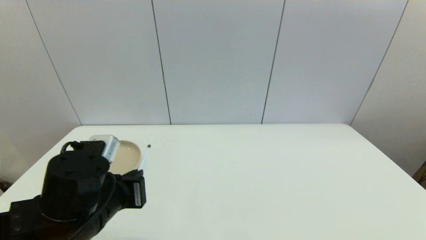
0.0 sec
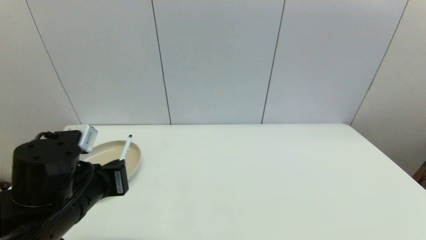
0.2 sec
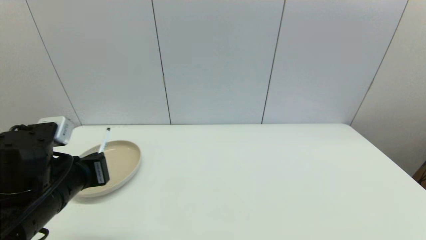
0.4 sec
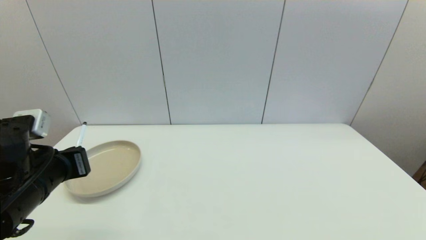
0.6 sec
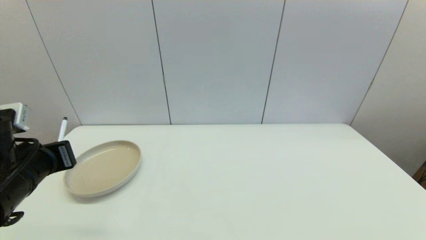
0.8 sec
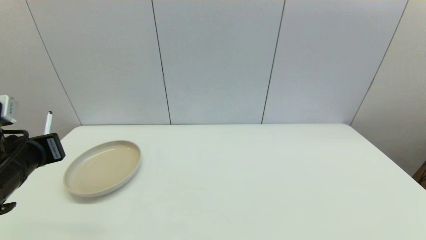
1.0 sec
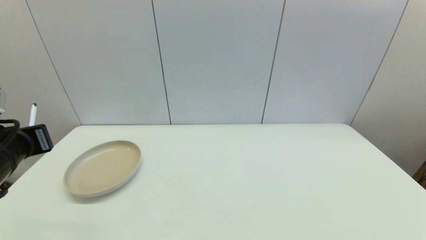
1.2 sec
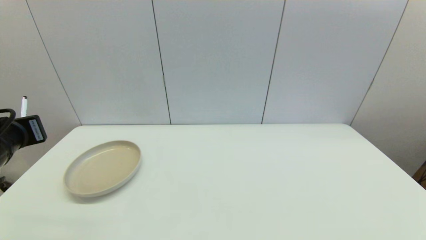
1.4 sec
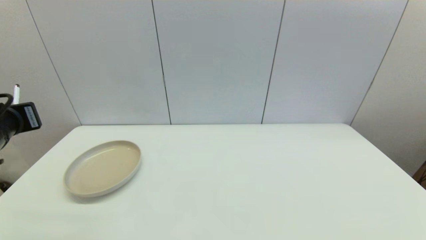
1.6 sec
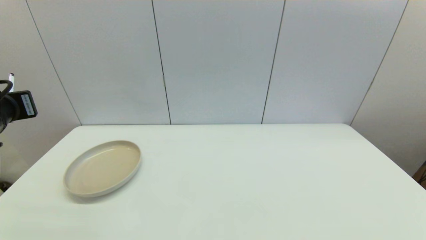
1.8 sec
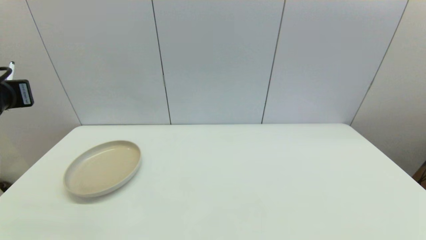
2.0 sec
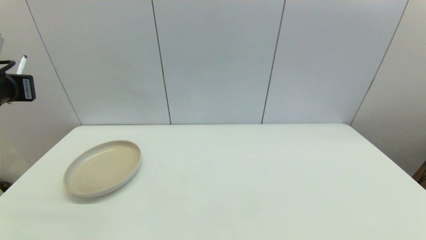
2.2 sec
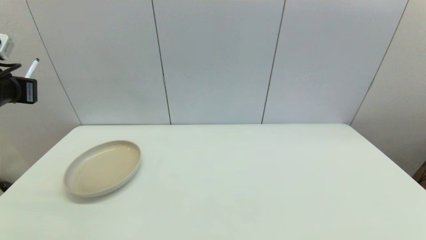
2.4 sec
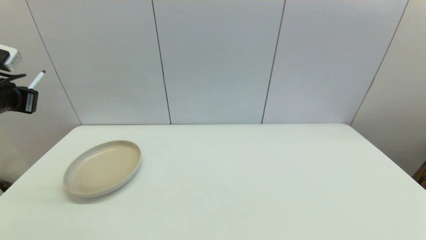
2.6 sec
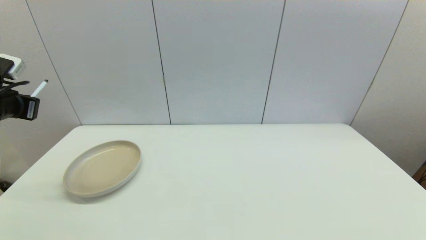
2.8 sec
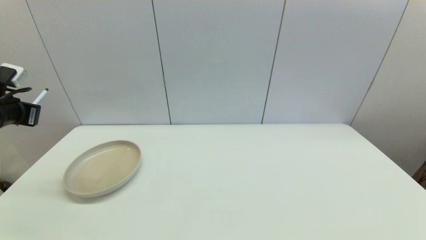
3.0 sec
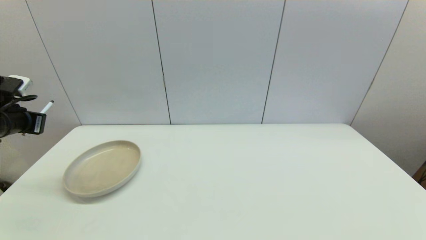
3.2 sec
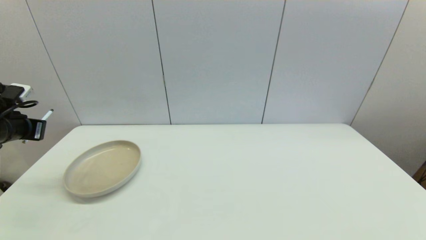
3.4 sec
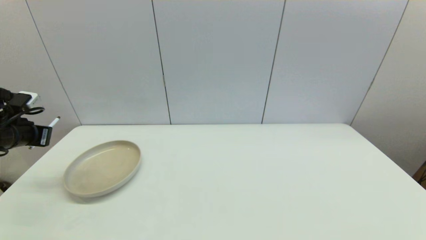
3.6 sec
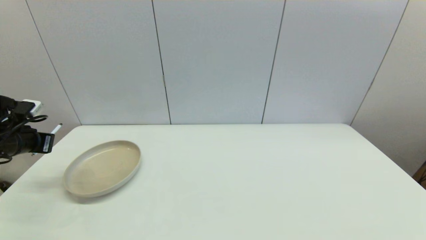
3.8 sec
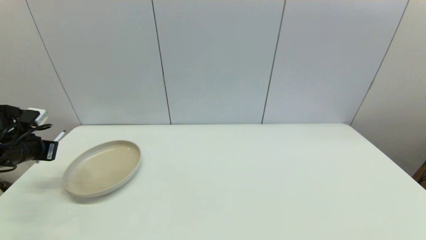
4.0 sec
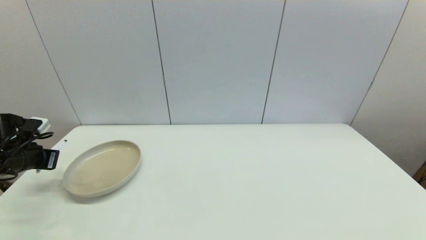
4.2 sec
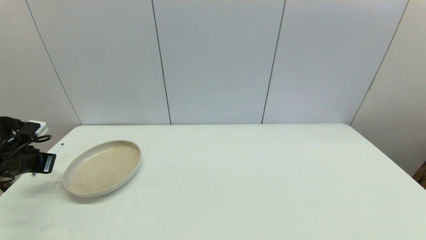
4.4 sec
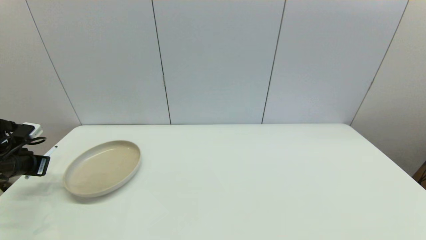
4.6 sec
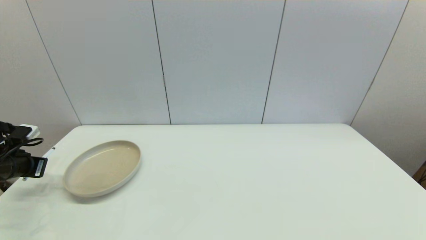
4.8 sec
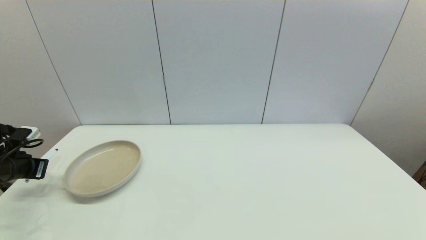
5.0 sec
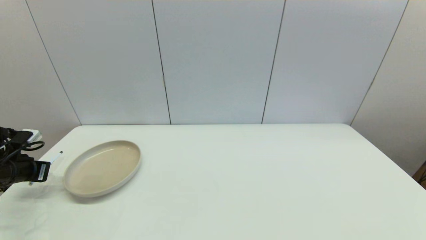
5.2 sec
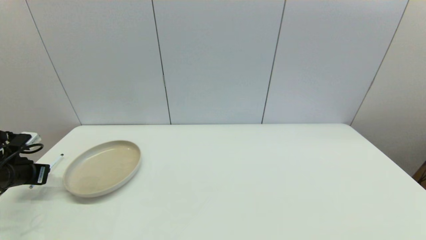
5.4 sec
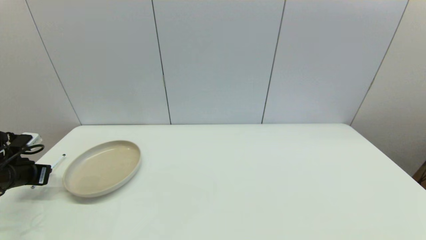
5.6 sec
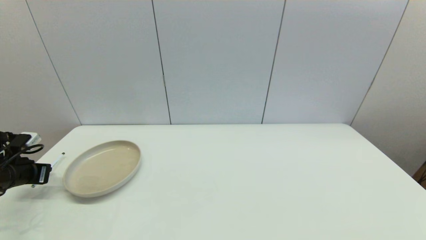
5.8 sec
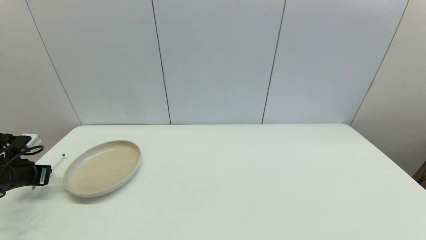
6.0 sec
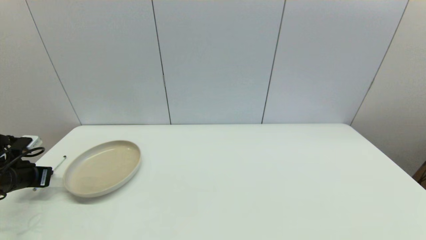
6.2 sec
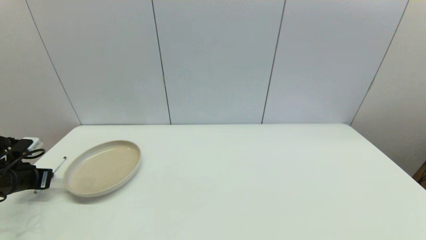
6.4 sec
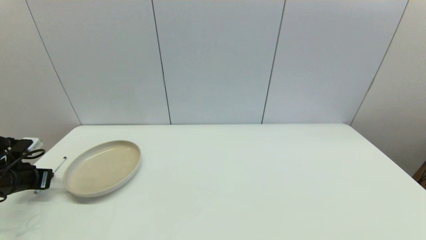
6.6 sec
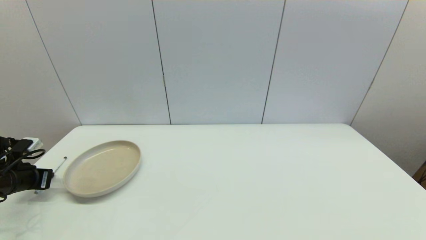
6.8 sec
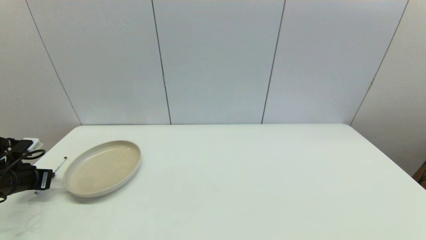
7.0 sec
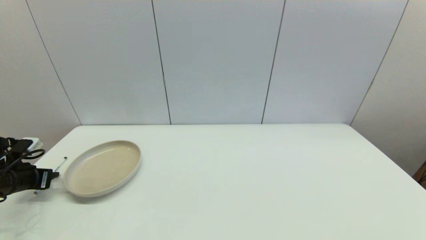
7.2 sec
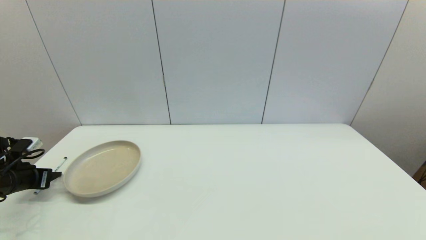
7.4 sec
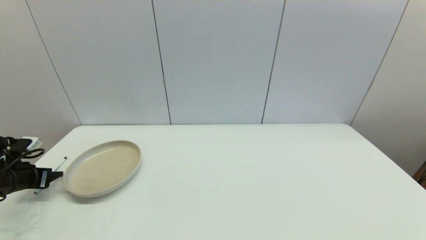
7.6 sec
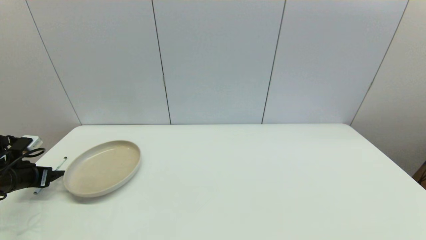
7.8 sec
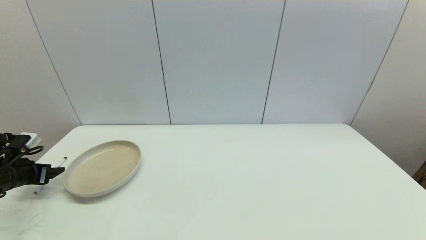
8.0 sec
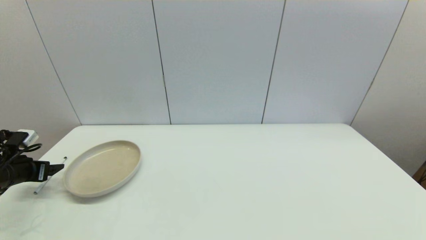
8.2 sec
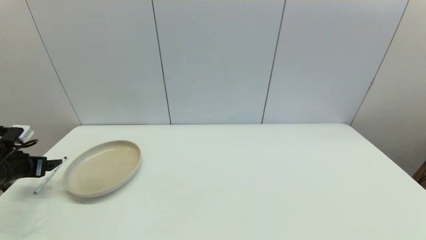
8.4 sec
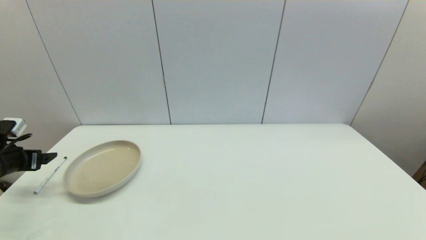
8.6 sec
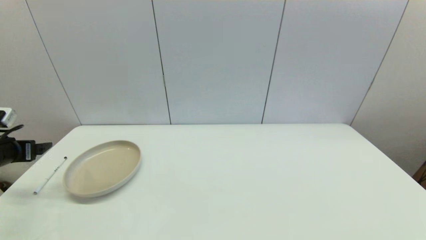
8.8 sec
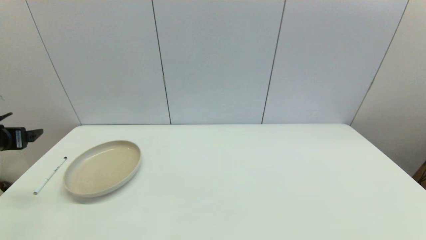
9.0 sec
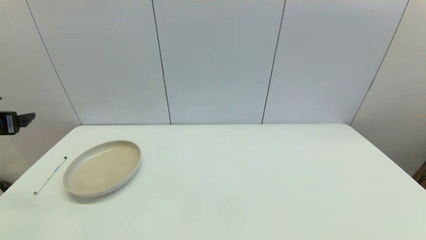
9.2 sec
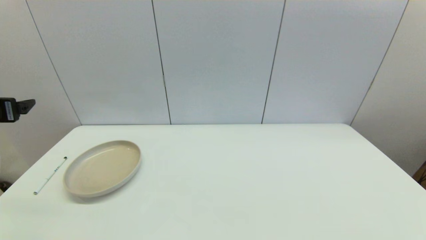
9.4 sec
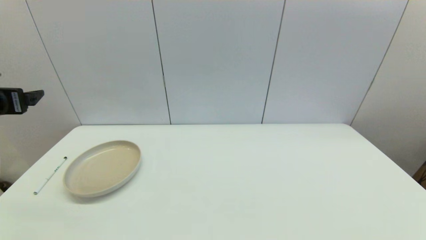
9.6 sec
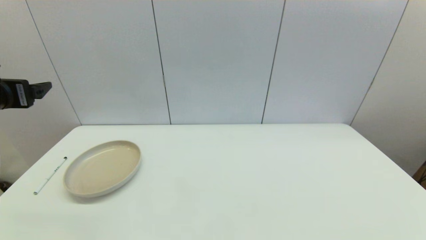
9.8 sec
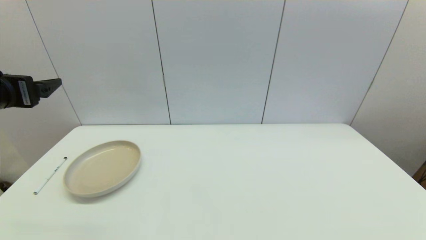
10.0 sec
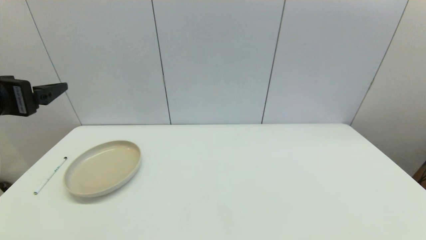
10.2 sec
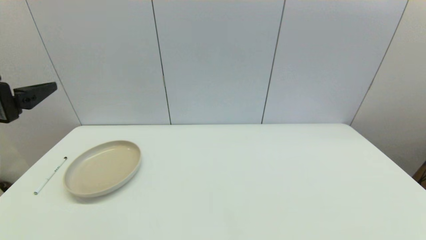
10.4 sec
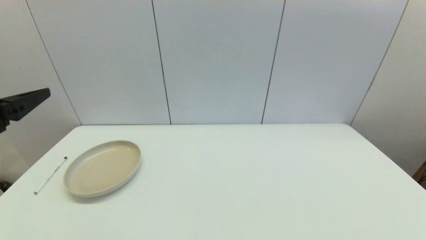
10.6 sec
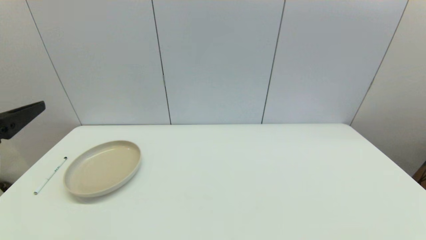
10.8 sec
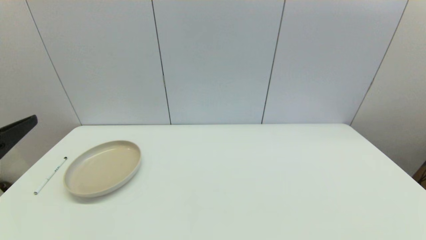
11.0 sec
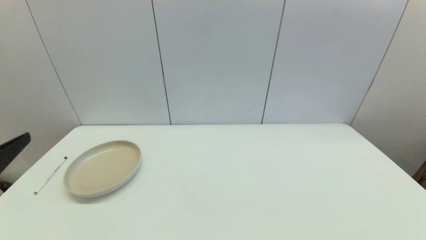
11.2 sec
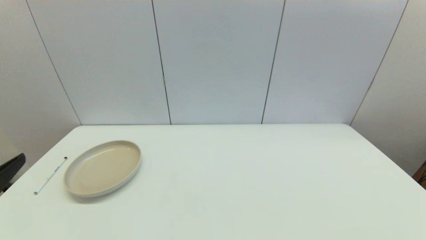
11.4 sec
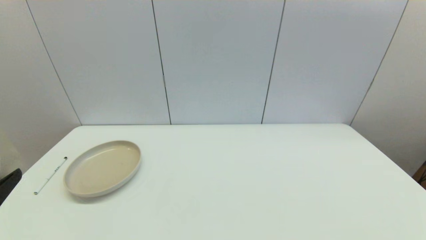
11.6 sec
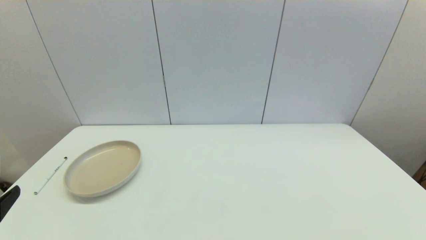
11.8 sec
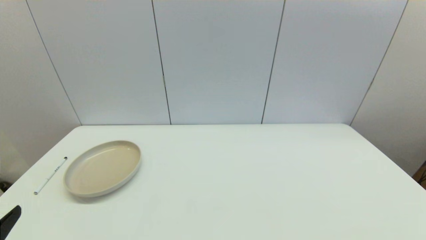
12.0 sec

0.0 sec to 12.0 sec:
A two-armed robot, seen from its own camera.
Task of the whole recording: put the pen in the designated position.
Step, 0.0 sec to 7.0 sec: Place the sign pen on the table with left gripper.
0.0 sec to 1.6 sec: The left gripper shifts roughly 20 cm to the left and upward.
1.6 sec to 3.0 sec: The left gripper goes roughly 10 cm to the left and forward.
3.0 sec to 4.4 sec: The left gripper shifts some 10 cm downward.
4.4 sec to 6.0 sec: The grippers move only a little.
6.0 sec to 7.6 sec: The left gripper opens.
7.6 sec to 9.0 sec: The left gripper moves upward, approximately 10 cm.
9.0 sec to 10.4 sec: The left gripper goes about 25 cm to the right, upward and backward.
10.4 sec to 12.0 sec: The left gripper is displaced backward and downward by about 20 cm.

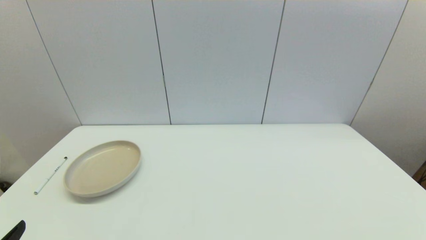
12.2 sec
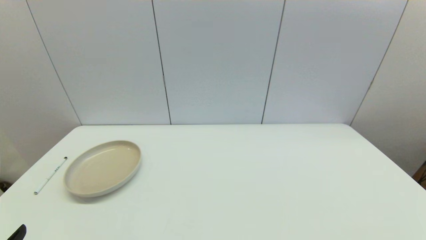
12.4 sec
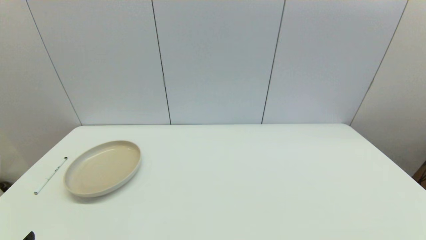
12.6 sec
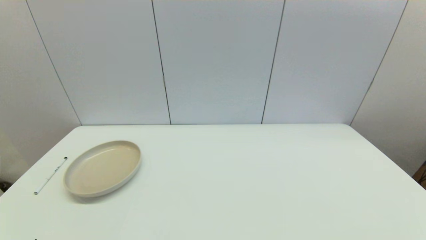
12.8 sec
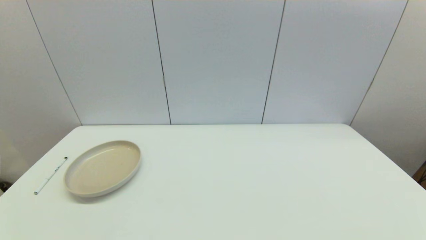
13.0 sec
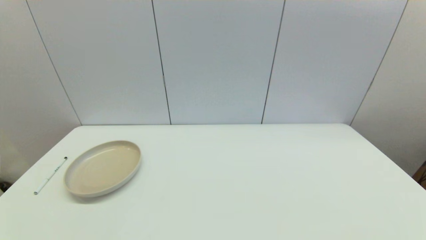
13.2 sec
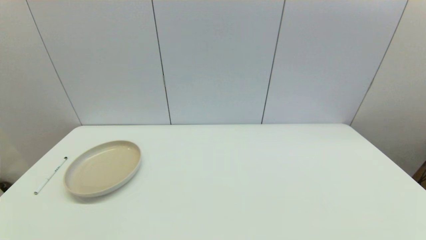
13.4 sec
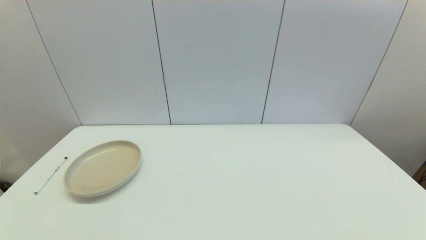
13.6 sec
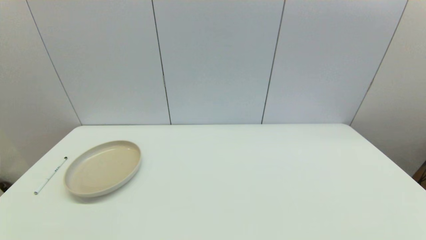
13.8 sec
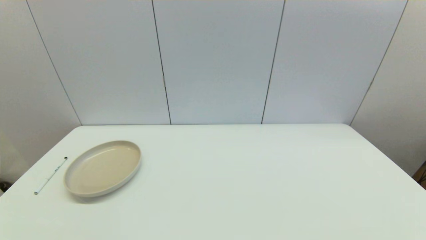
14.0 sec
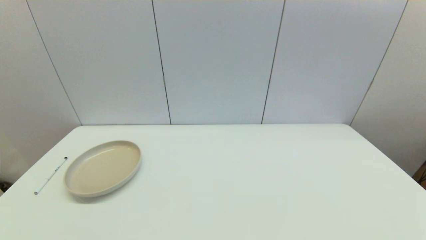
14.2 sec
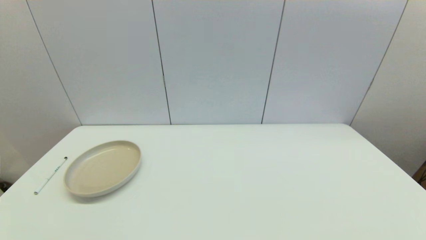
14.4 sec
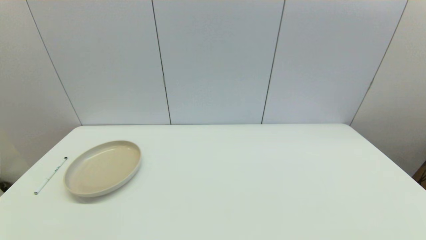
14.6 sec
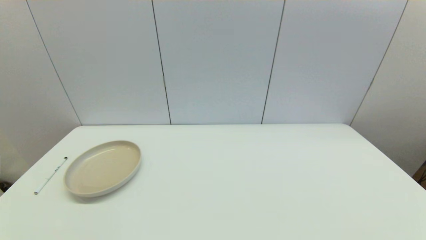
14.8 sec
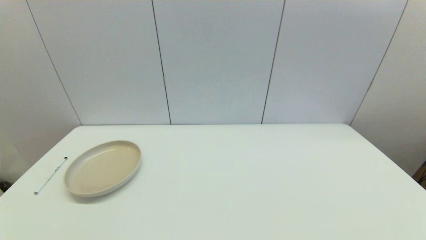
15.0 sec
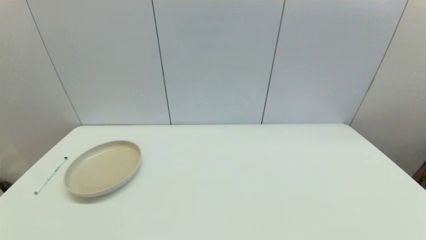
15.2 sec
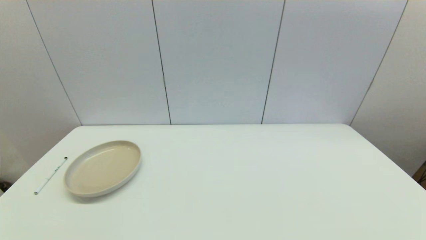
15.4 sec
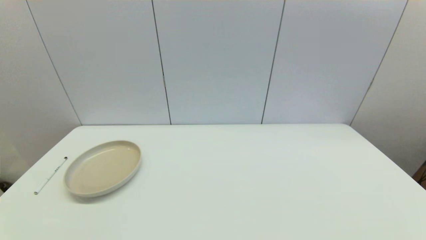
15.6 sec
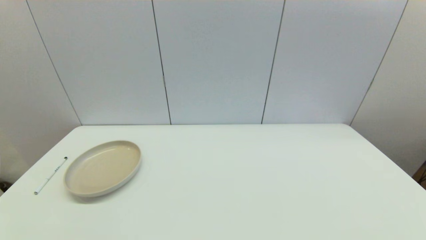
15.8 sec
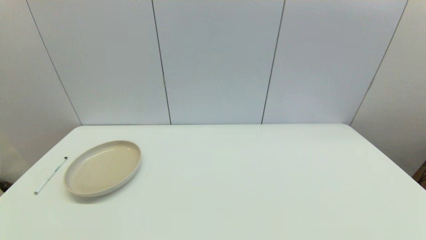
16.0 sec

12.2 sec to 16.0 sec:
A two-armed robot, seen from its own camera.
Task of the whole recording: put the pen in the designated position.
14.8 sec to 16.0 sec: Neither gripper changes place.
